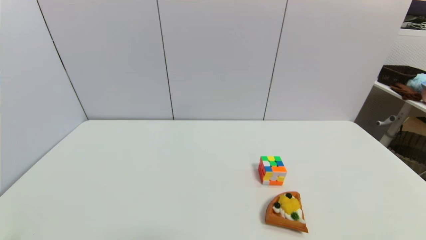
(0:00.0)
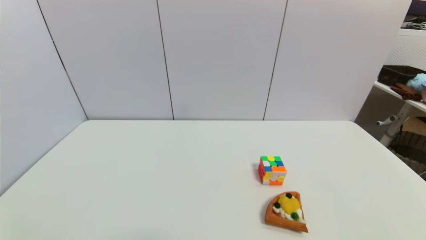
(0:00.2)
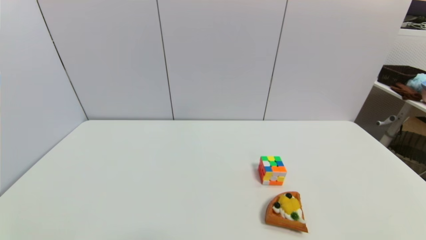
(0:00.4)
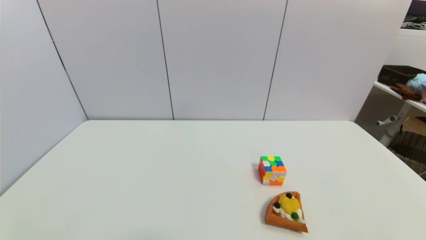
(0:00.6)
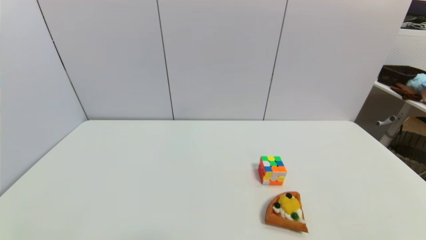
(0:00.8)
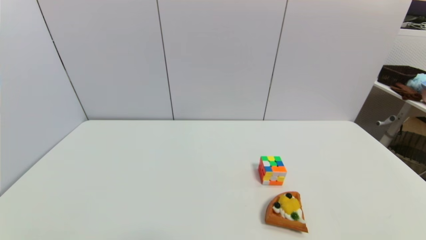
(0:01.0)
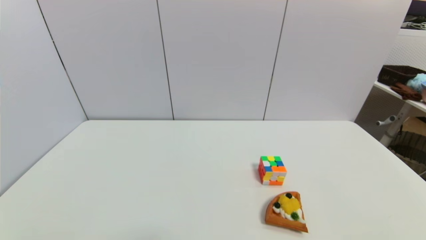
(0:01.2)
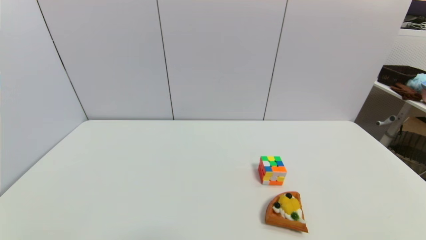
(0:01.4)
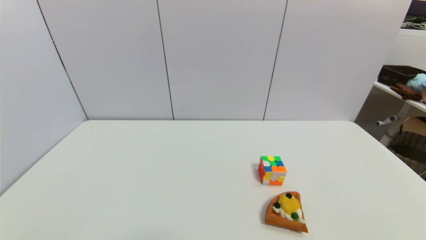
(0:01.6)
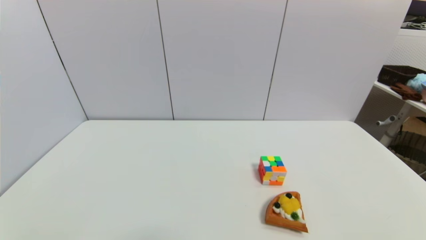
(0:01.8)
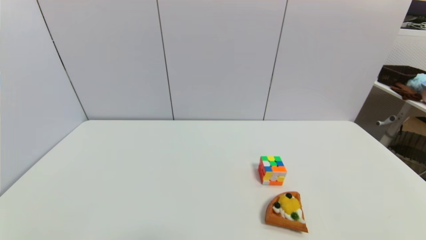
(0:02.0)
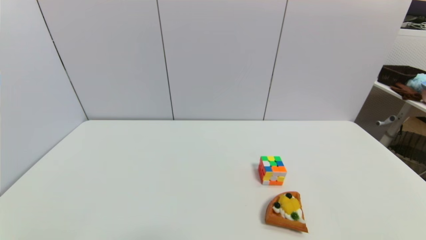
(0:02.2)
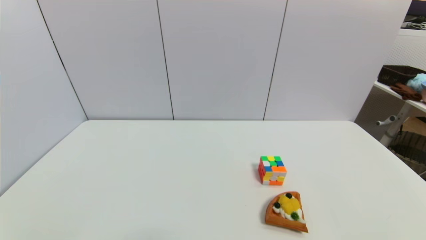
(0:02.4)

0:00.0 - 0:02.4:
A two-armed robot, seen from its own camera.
0:01.2 - 0:02.4: The two grippers keep their place.

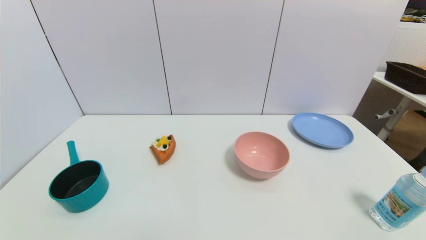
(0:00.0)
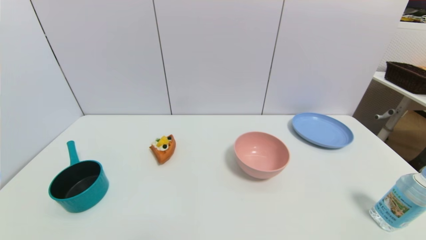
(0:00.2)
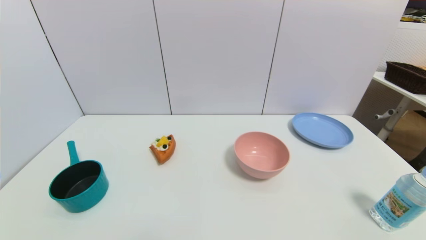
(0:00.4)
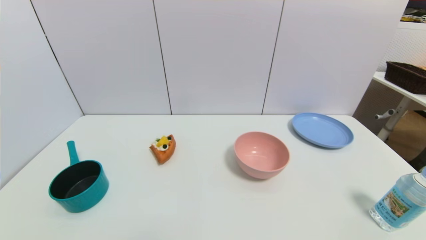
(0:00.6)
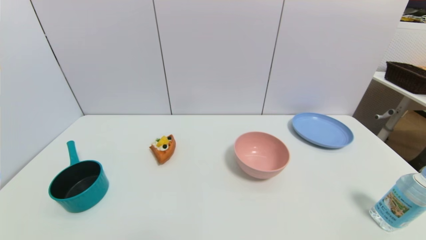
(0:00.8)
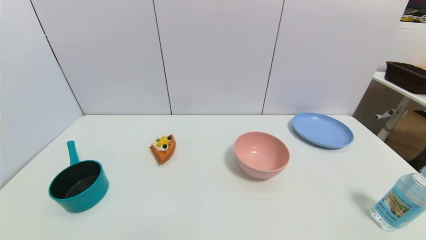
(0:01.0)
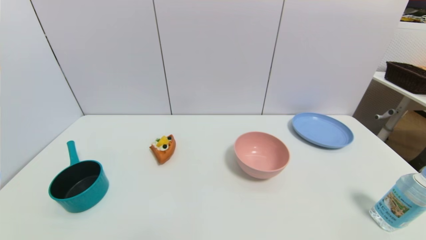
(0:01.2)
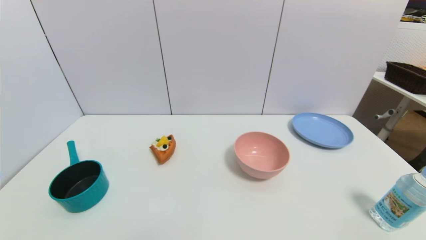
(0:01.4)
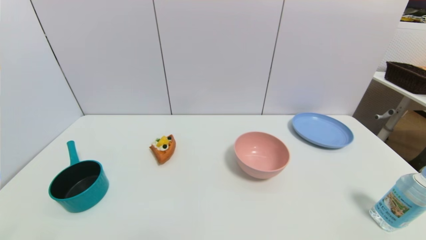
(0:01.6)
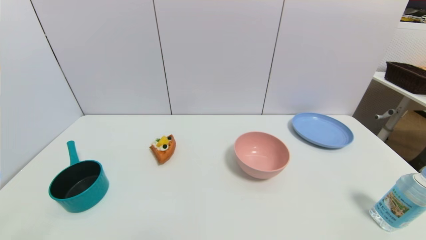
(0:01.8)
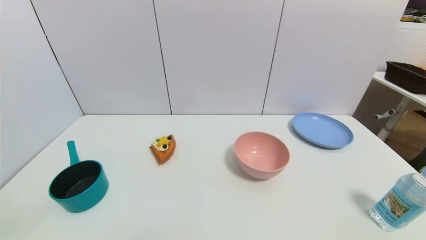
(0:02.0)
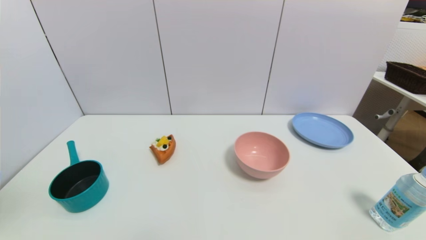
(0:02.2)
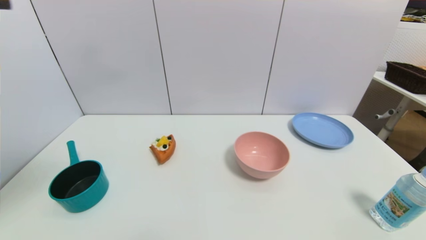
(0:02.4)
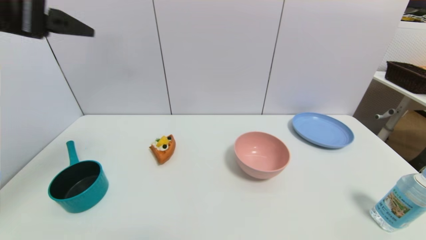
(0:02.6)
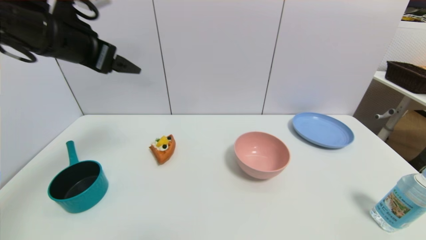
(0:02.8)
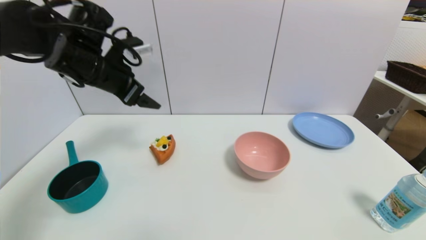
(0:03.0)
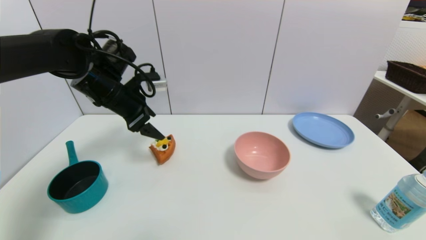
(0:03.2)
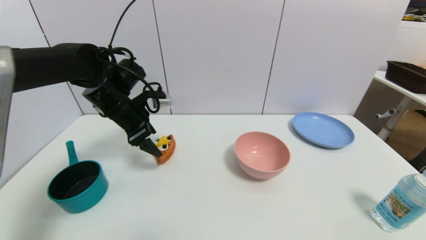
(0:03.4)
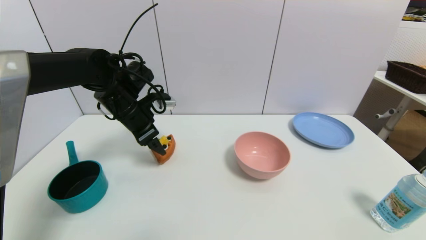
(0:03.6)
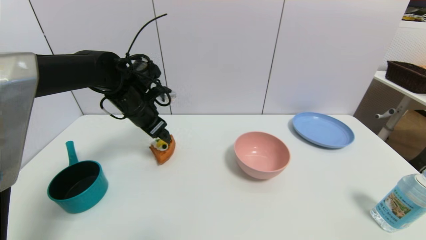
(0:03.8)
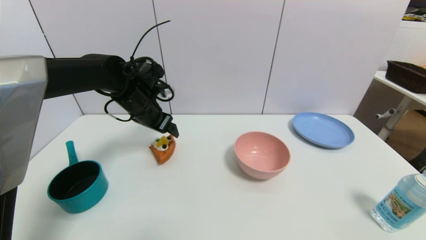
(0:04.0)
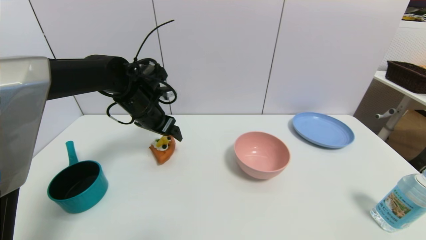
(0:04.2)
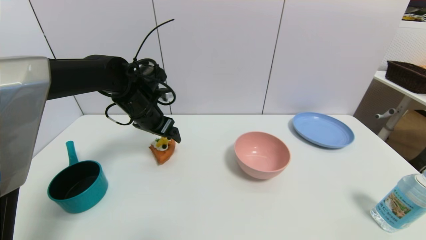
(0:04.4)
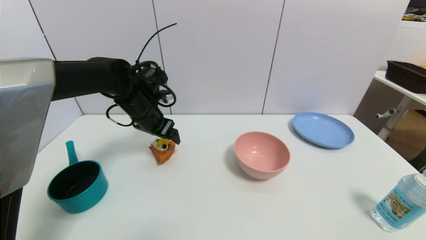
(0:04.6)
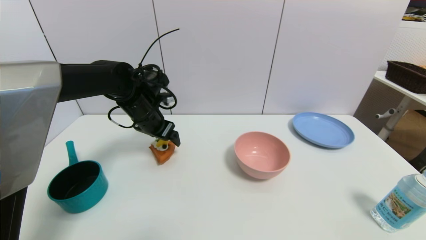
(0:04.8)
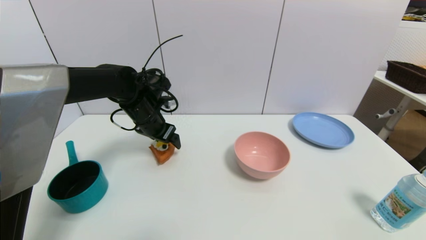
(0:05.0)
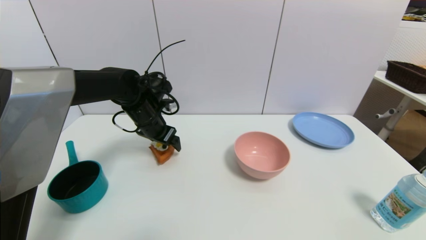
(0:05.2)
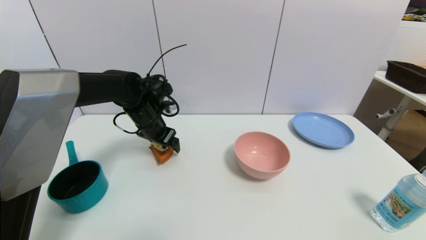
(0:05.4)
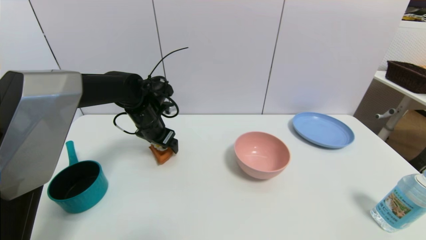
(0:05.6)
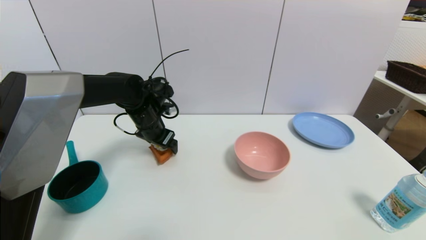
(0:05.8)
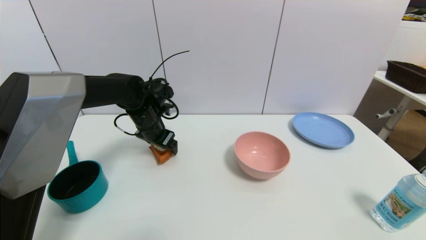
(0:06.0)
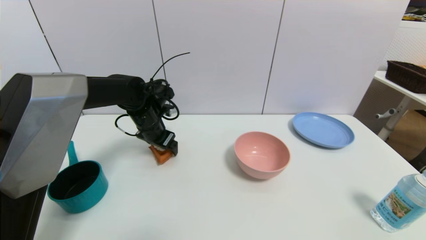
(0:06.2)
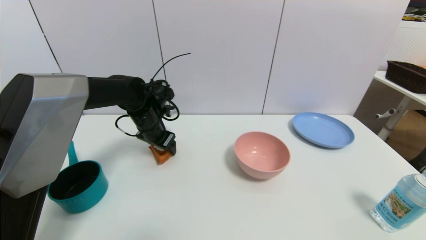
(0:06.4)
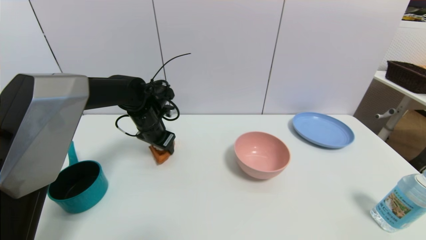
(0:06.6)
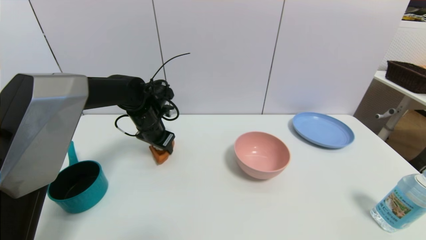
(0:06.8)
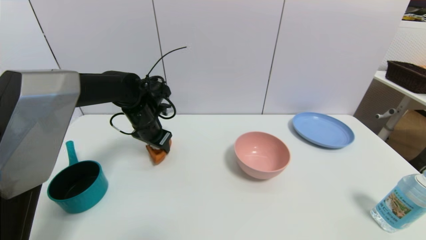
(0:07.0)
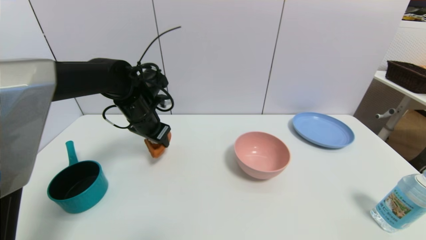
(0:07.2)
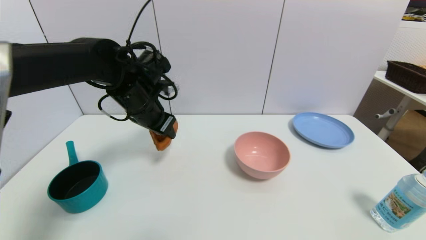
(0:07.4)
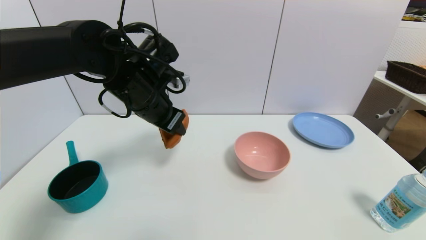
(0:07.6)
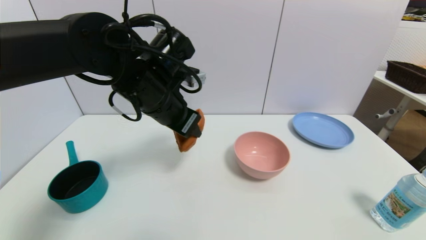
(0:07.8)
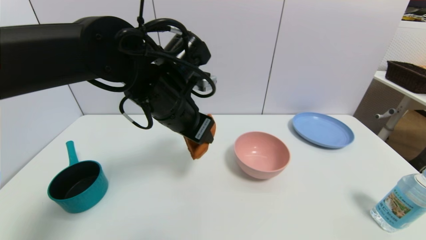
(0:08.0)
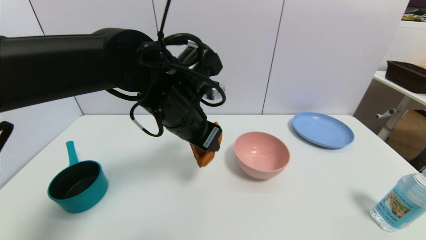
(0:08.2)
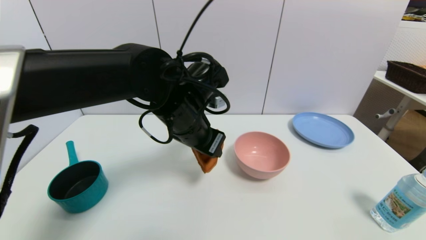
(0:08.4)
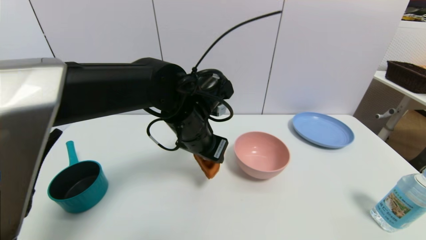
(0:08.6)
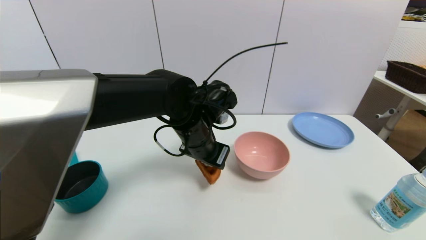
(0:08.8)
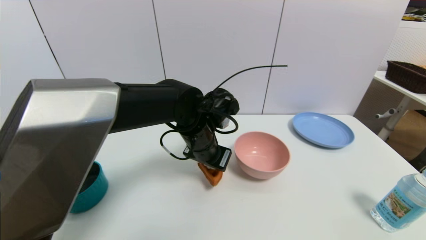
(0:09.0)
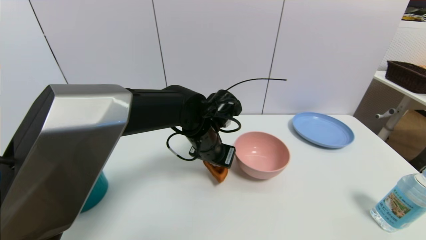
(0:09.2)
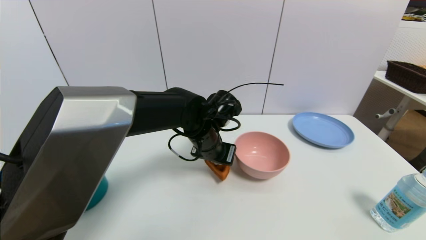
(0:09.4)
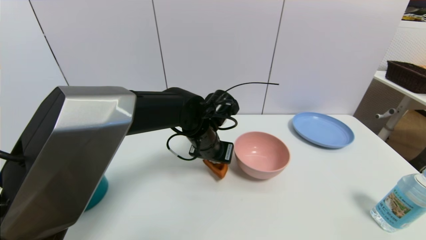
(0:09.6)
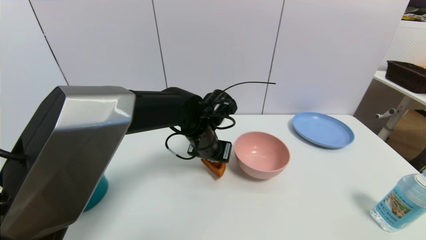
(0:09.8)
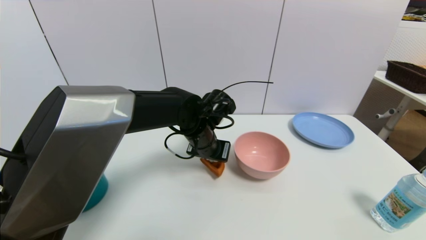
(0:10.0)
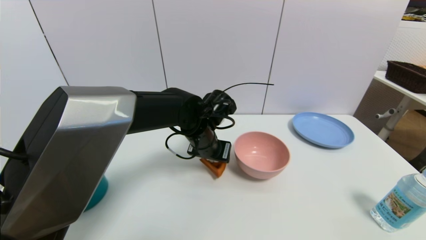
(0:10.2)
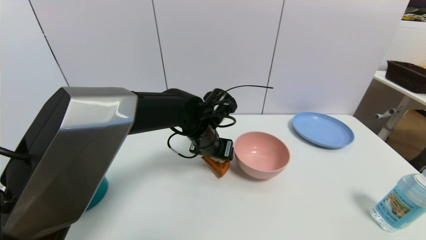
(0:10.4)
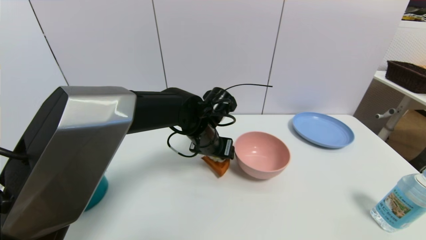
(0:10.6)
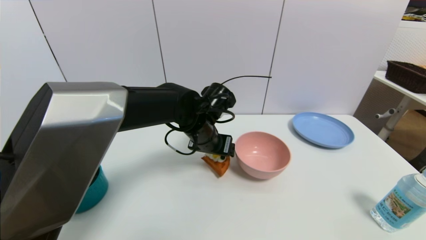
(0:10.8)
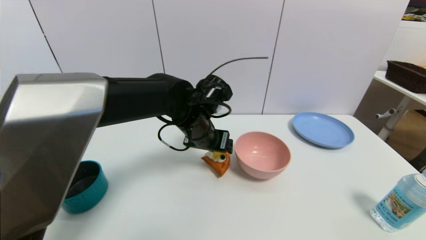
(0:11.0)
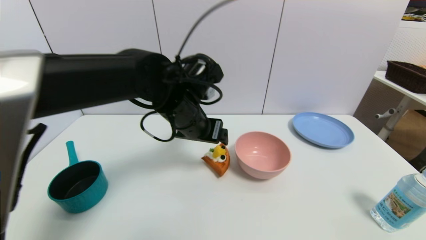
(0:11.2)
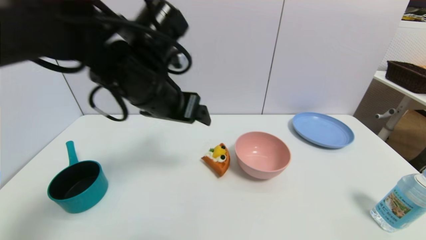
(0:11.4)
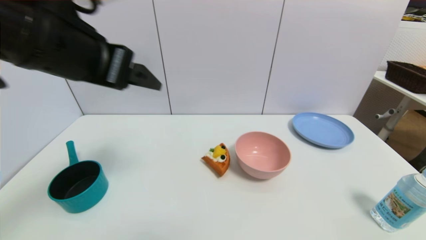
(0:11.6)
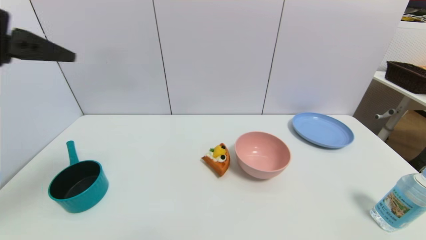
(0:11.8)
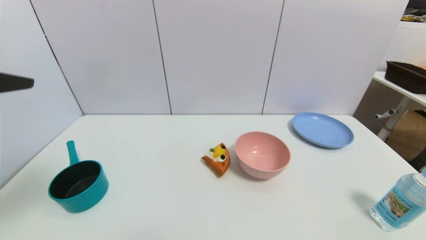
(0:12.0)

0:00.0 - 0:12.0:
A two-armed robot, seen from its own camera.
0:01.6 - 0:03.0: The left gripper is displaced forward by roughly 35 cm.
0:03.0 - 0:04.4: The left gripper travels downward and to the right by about 10 cm.
0:04.4 - 0:06.0: The grippers stay close to where they were, moving slightly.
0:06.0 - 0:07.6: The left gripper goes roughly 15 cm upward and backward, and closes up.
0:07.6 - 0:09.0: The left gripper is displaced to the right and downward by about 15 cm.
0:09.0 - 0:10.4: The left gripper opens.
0:10.4 - 0:12.0: The left gripper heads to the left, backward and upward, covering approximately 40 cm, and opens its fingers.

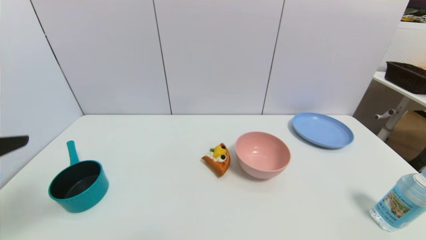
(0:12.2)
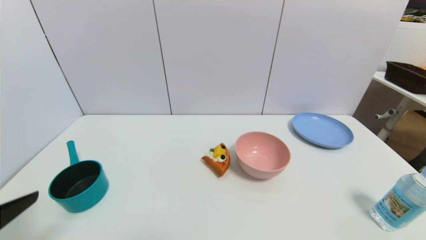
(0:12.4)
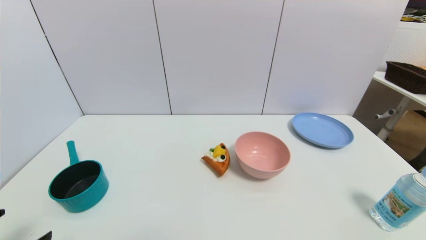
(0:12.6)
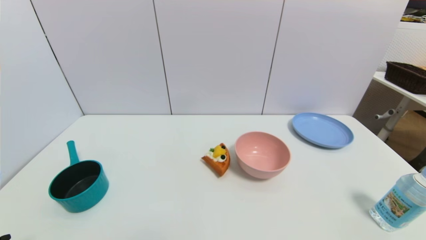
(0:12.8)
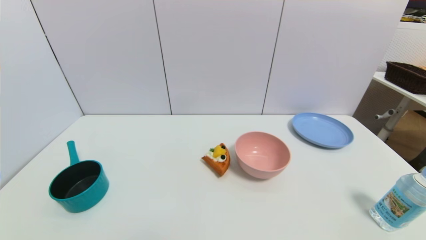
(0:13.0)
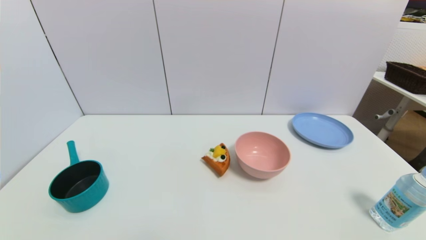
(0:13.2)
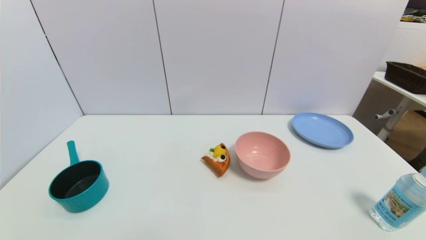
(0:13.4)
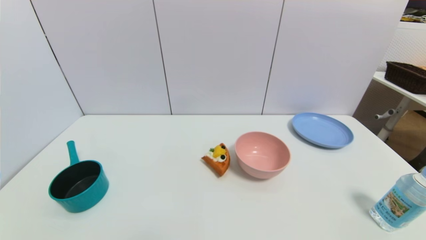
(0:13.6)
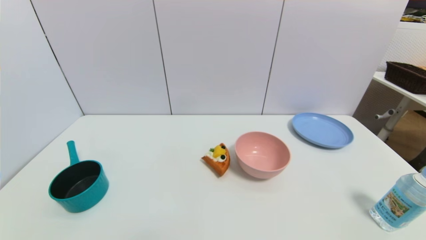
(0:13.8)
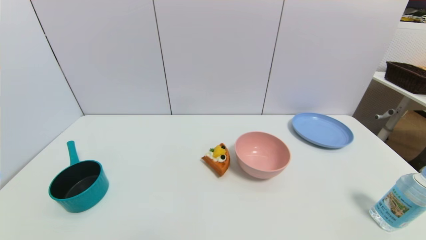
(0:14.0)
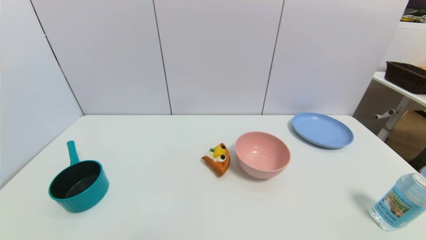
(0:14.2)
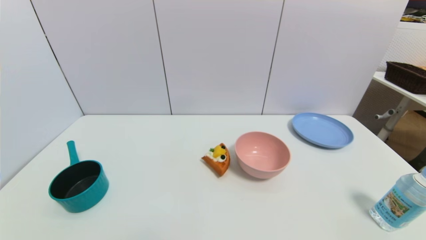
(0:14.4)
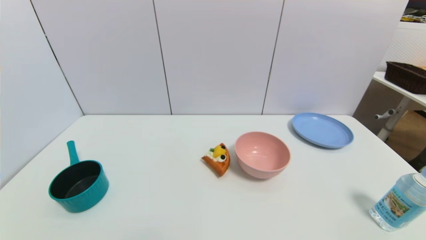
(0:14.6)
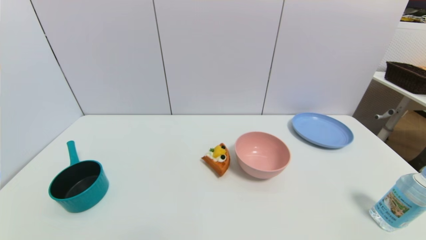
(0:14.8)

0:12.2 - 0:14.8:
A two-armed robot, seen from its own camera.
0:12.2 - 0:13.4: The left gripper goes about 25 cm downward.
0:13.4 - 0:14.8: Neither gripper changes place.
